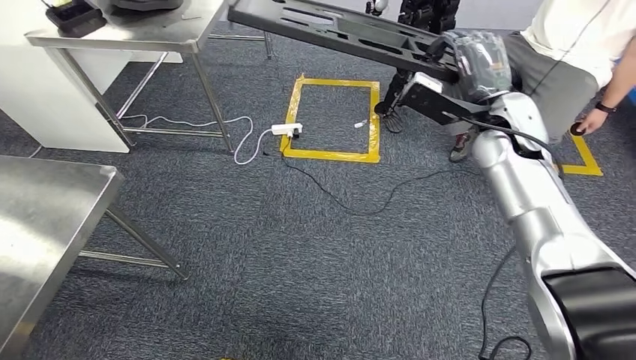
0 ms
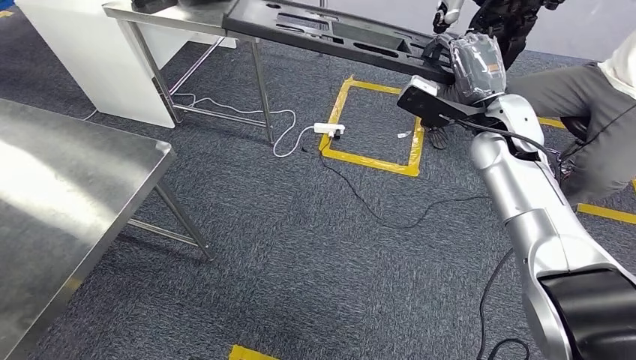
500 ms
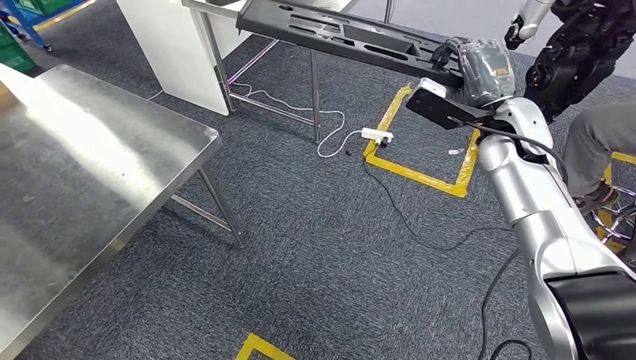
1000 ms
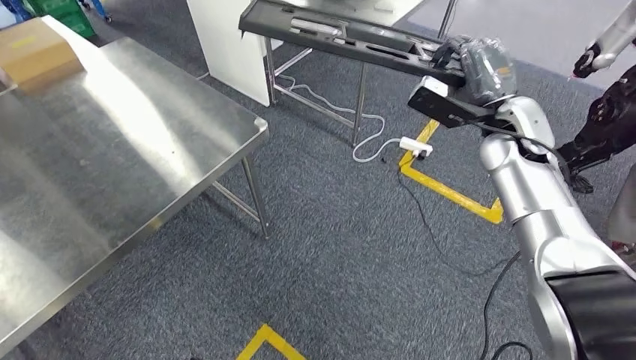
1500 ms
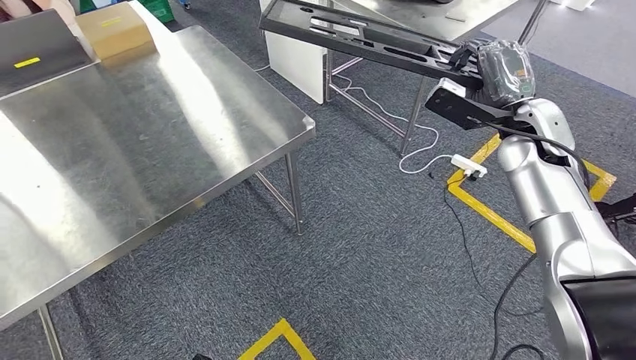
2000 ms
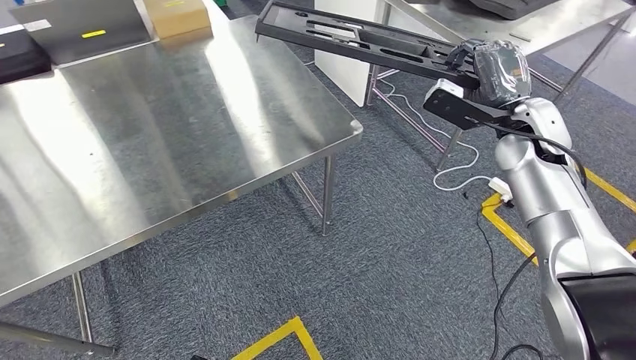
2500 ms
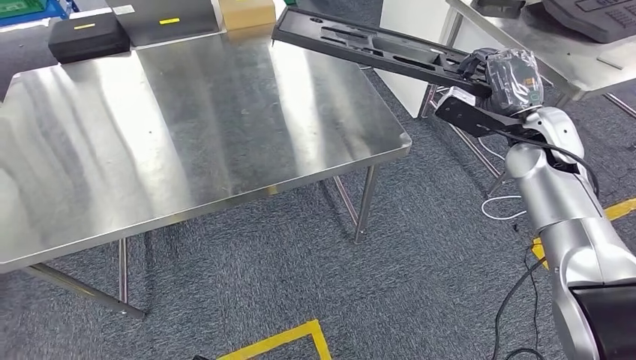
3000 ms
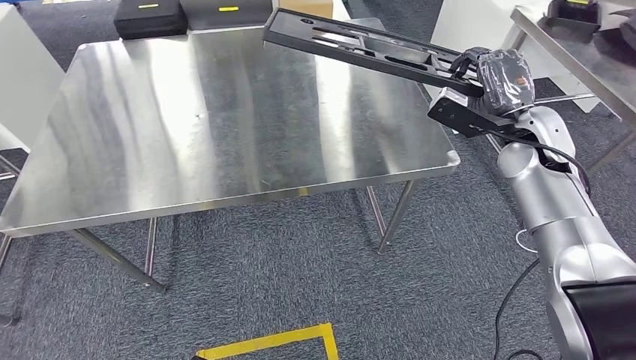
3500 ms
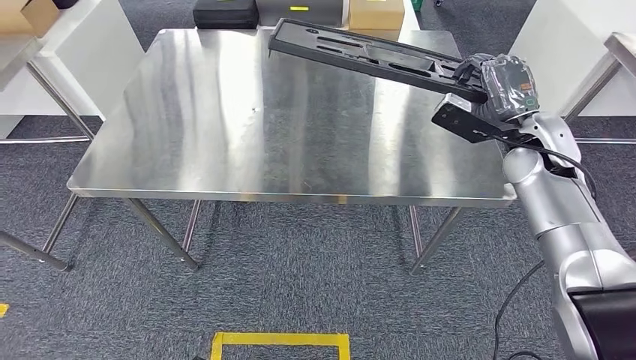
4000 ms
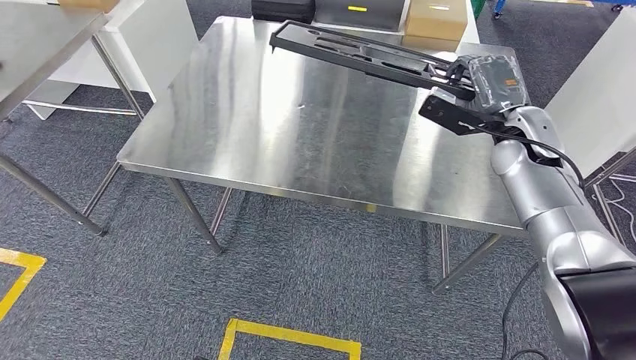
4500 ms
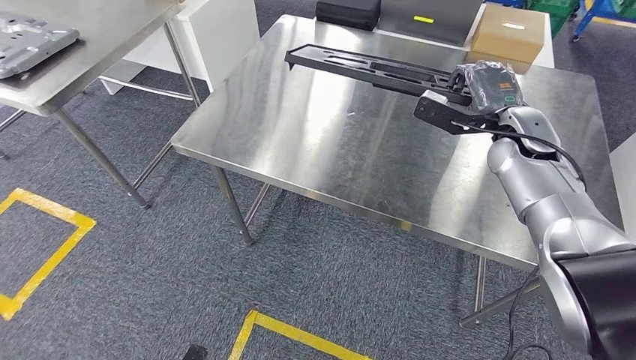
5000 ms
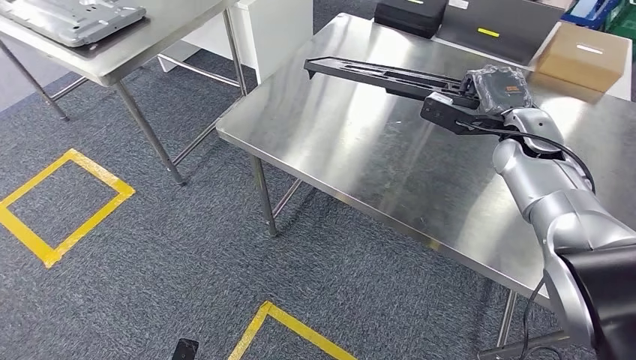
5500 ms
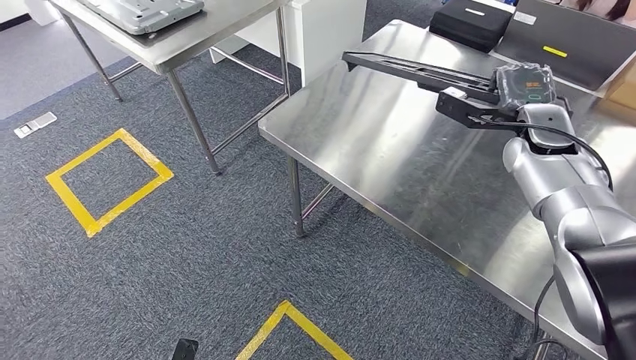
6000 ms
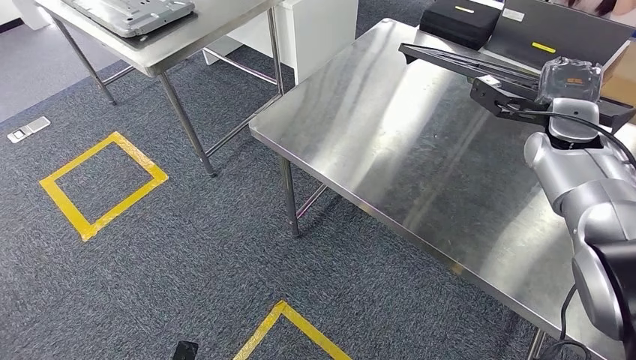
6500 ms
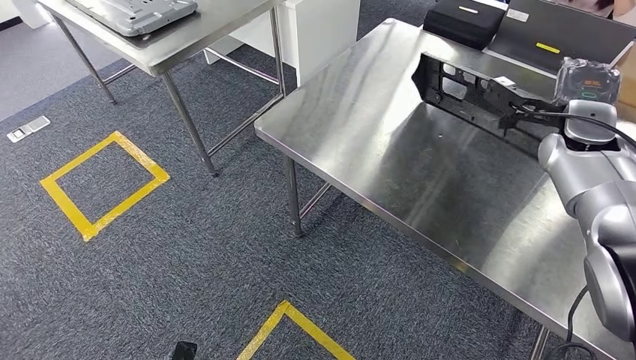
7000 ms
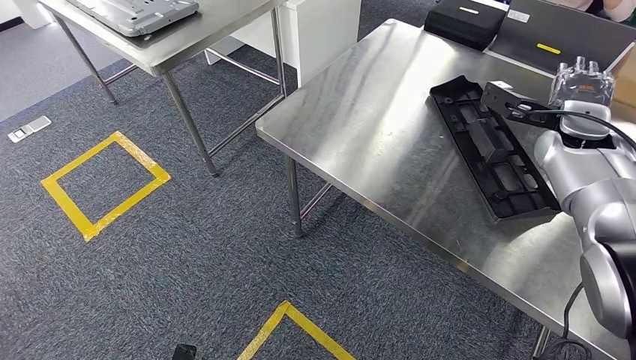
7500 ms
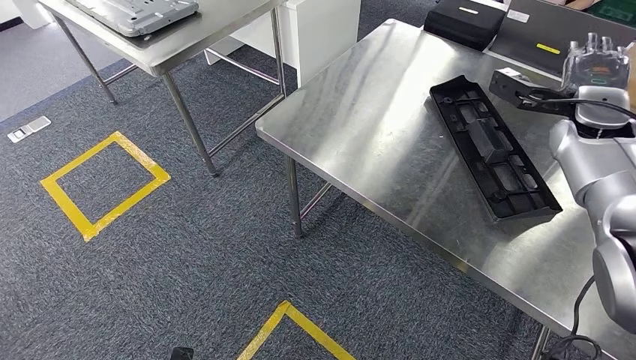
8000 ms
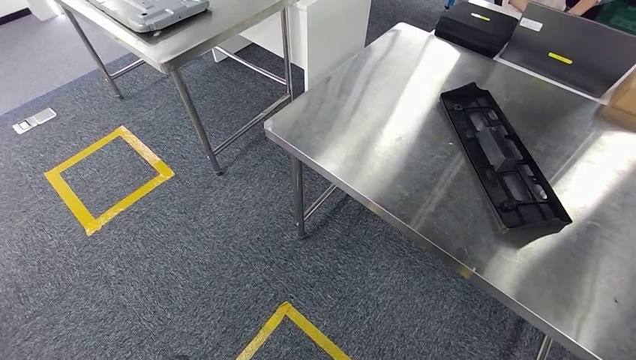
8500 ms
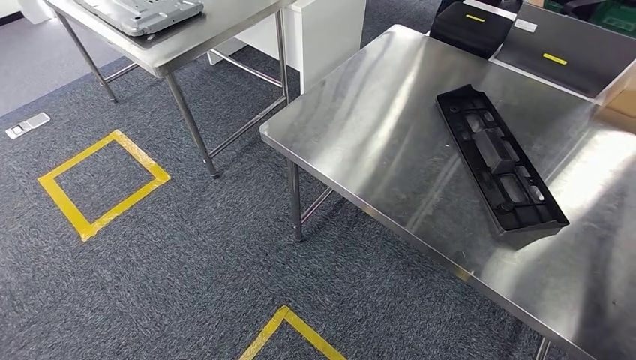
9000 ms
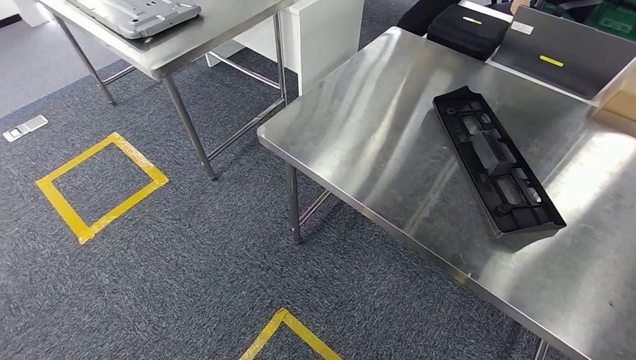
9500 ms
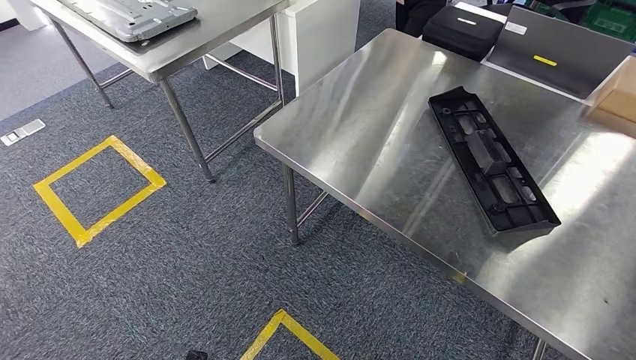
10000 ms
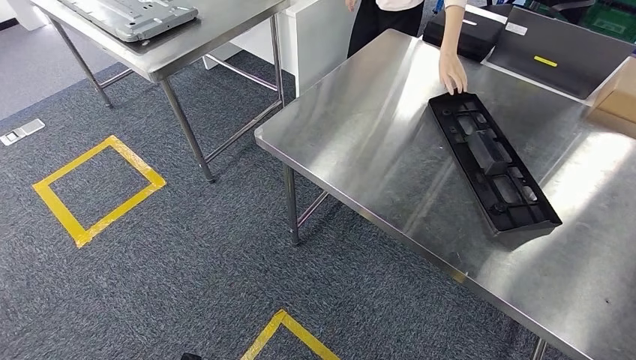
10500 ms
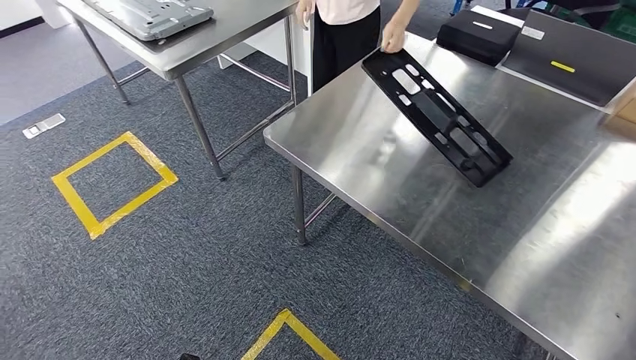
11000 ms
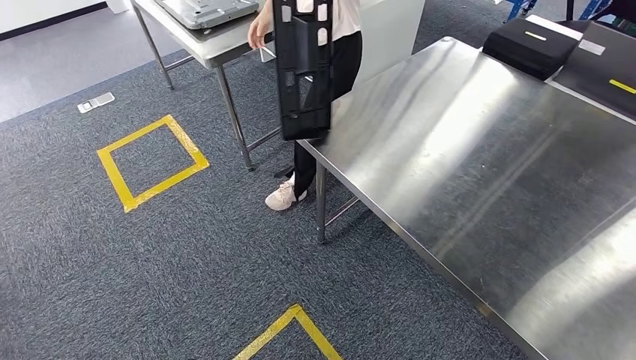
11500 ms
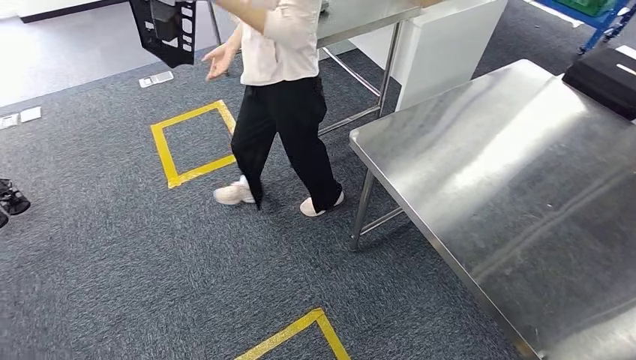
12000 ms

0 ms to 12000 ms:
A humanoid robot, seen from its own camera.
Step, 1000 ms to 10500 ms: Insert the large material into the corresponding slot on the workbench.

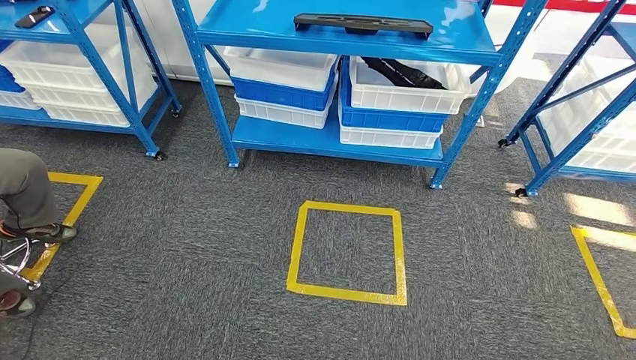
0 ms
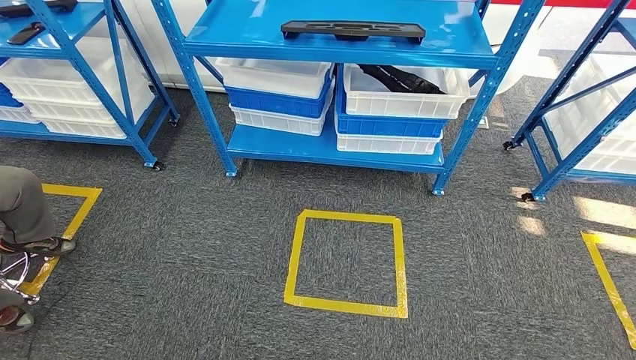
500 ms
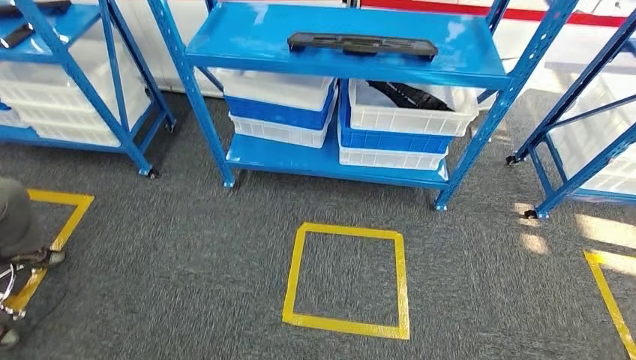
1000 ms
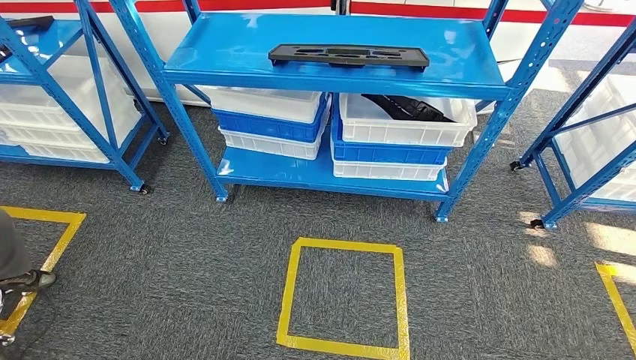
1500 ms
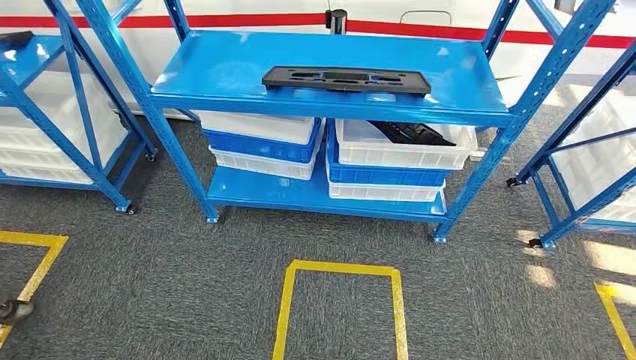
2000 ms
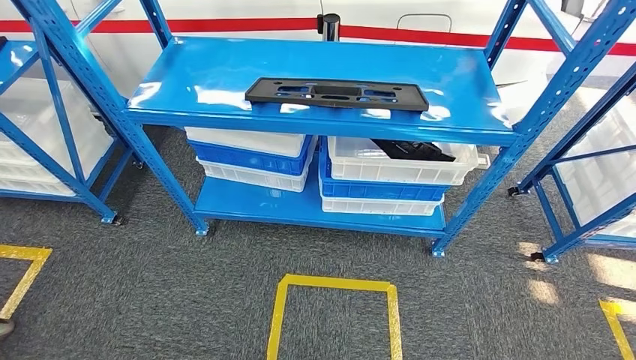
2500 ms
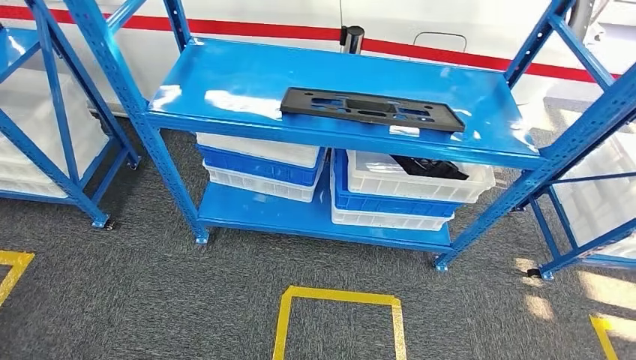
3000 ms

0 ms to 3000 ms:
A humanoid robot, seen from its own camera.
Step, 0 ms to 3000 ms: Move to the initial position of the shelf.
